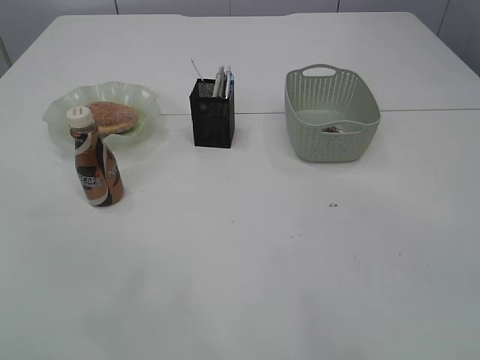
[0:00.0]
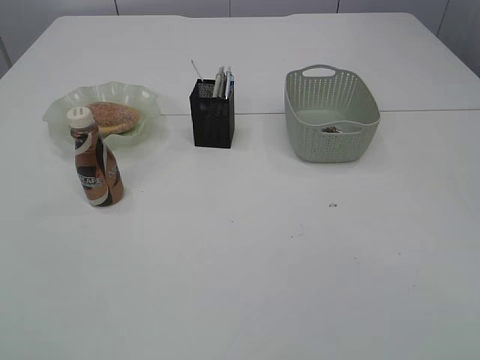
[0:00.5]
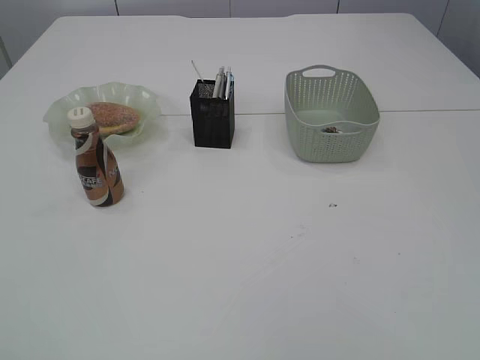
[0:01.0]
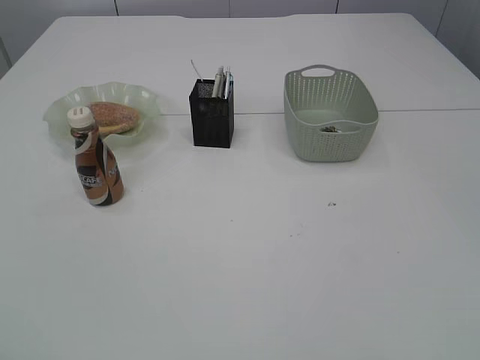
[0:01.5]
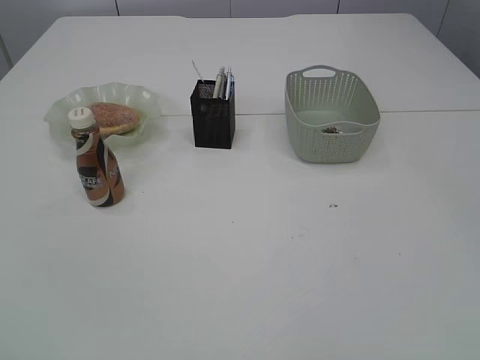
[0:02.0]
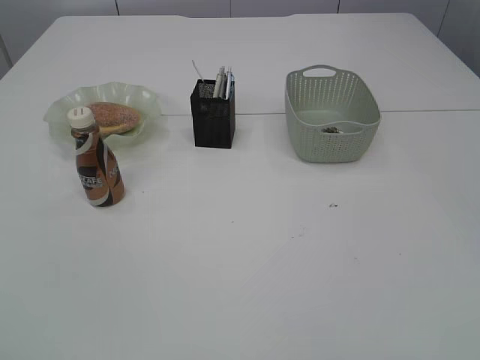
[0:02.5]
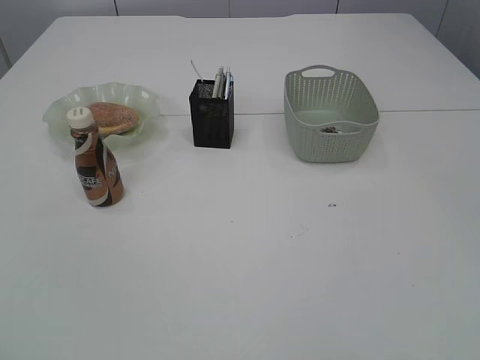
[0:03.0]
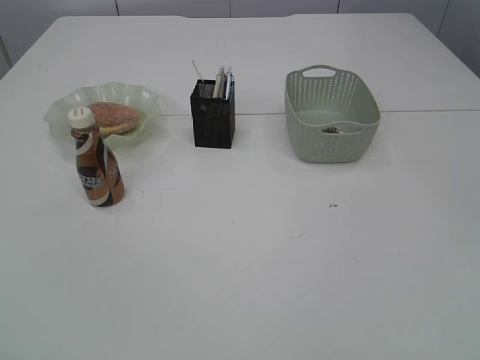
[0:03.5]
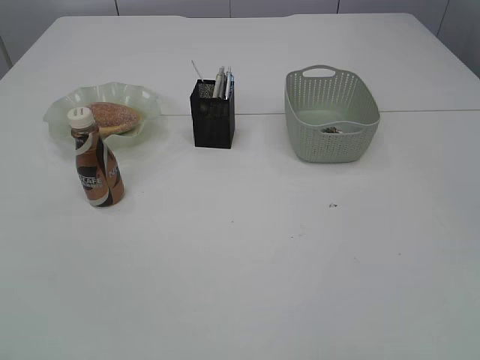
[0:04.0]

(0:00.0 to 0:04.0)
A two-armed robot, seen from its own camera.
0:00.0 - 0:02.0: Both grippers move backward and downward, about 35 cm.
